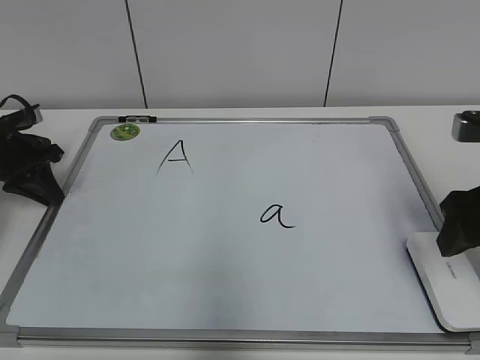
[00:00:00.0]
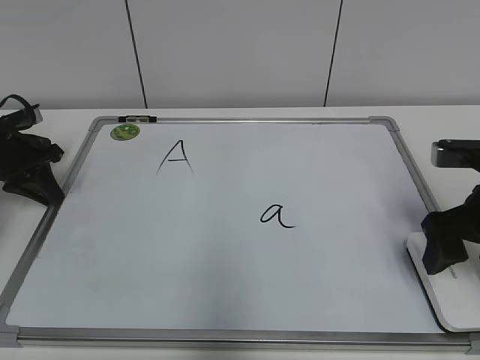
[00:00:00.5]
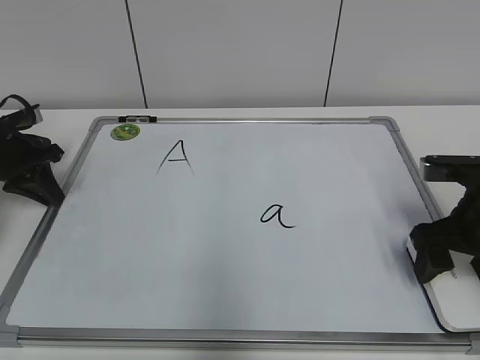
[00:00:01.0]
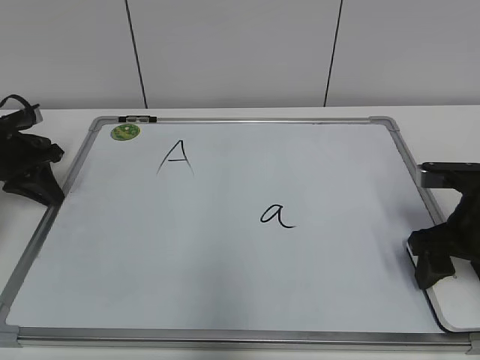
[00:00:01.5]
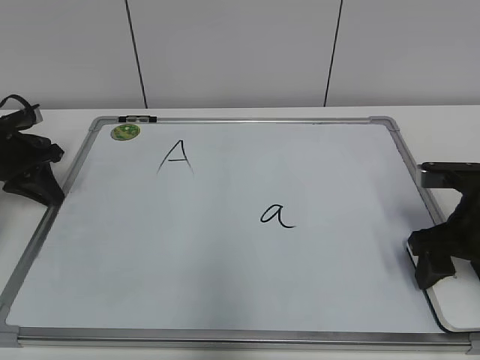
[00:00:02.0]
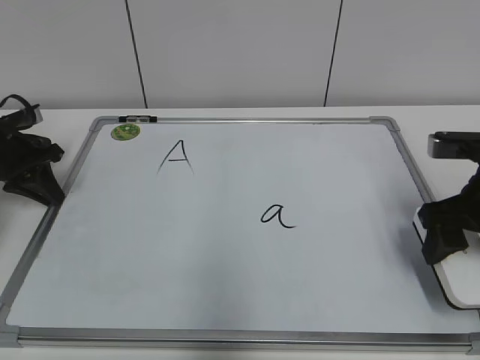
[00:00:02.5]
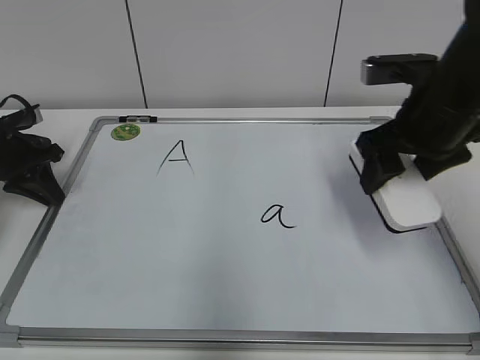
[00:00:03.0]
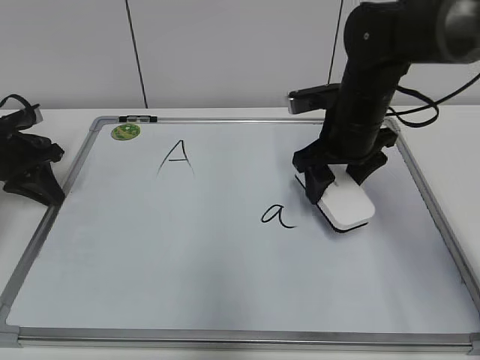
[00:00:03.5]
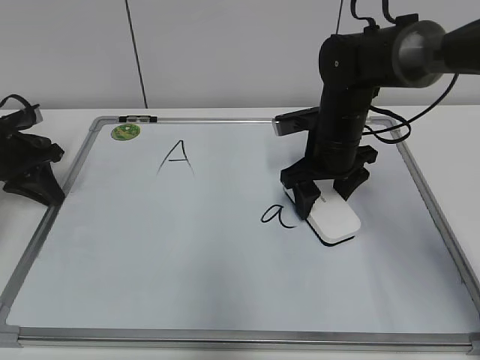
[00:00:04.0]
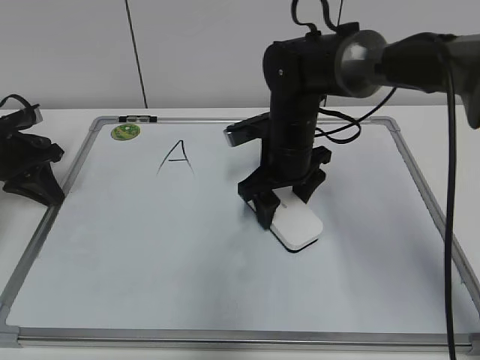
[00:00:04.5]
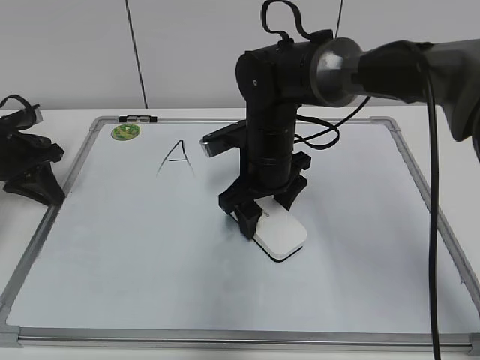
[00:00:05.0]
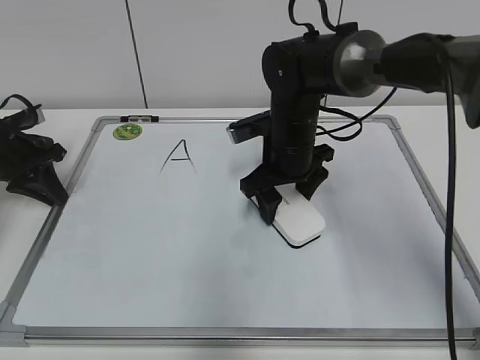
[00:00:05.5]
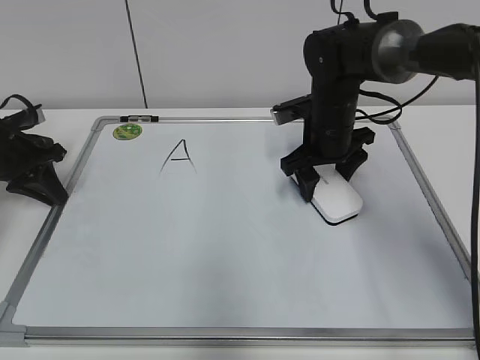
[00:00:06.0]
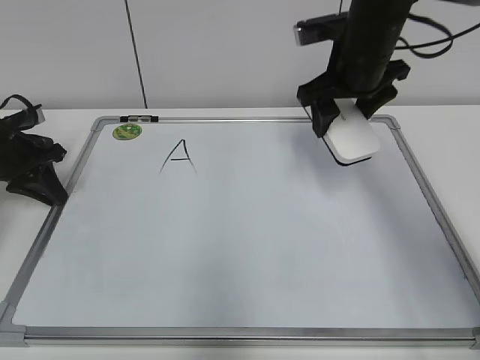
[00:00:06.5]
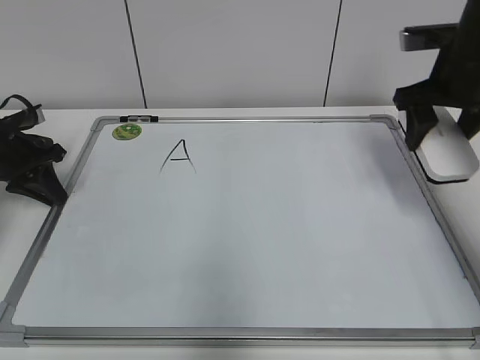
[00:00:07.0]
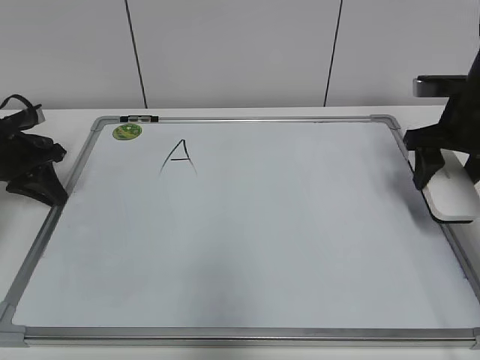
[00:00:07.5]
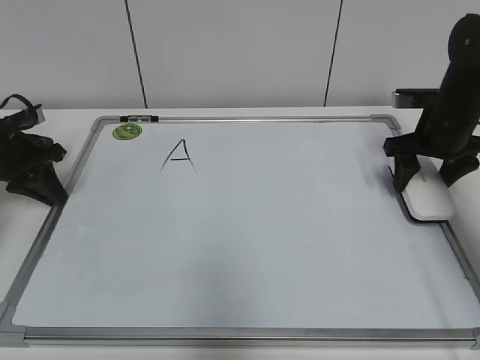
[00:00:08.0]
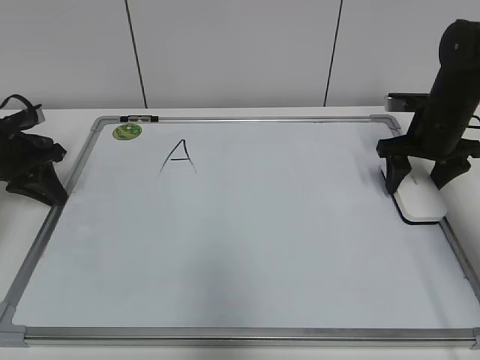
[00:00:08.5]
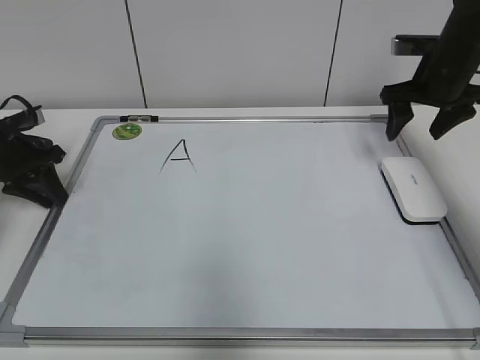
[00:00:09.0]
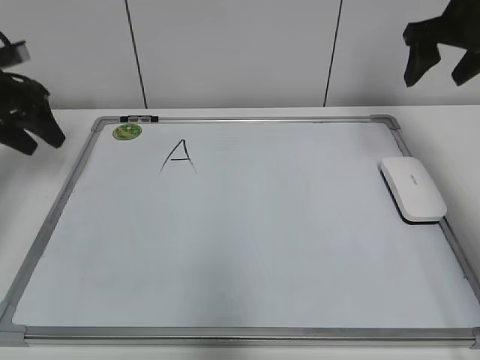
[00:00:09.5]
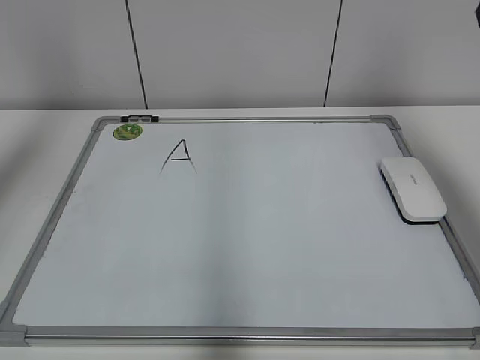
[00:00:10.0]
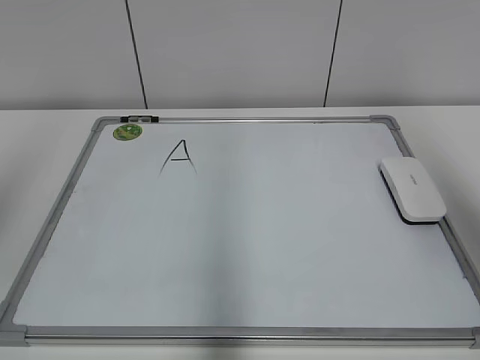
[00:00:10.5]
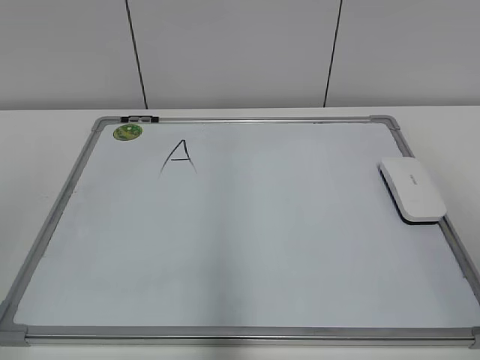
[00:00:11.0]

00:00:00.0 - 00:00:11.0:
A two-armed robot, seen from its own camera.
Task of the whole recording: pick up the eraser on the blackboard and erase the letter "a".
Step, 00:00:00.0 - 00:00:02.0: Grab the eraser with your right hand.
Step, 00:00:02.5 - 00:00:06.0: Erase the letter a with your right hand.
Step, 00:00:06.5 - 00:00:08.5: Put down the eraser with your right hand.
00:00:00.0 - 00:00:02.0: The right gripper travels downward by some 10 cm.
00:00:02.0 - 00:00:03.5: The right gripper moves to the left and forward, approximately 15 cm.
00:00:03.5 - 00:00:05.5: The right gripper moves to the left, about 5 cm.
00:00:05.5 - 00:00:07.5: The right gripper goes about 20 cm to the right.
00:00:07.5 - 00:00:09.0: The right gripper travels forward by roughly 5 cm.
00:00:09.0 - 00:00:11.0: The two grippers go roughly 40 cm backward and upward. The left gripper opens.
